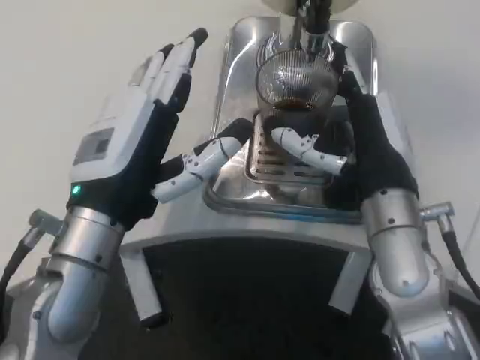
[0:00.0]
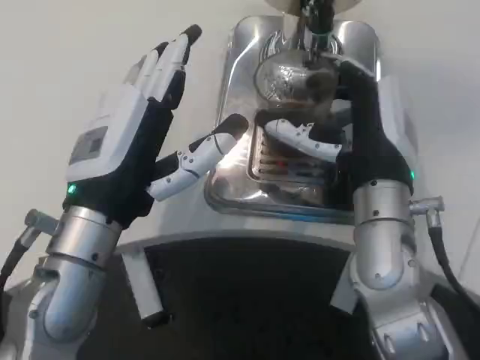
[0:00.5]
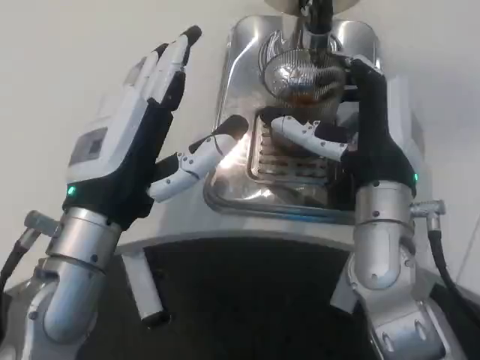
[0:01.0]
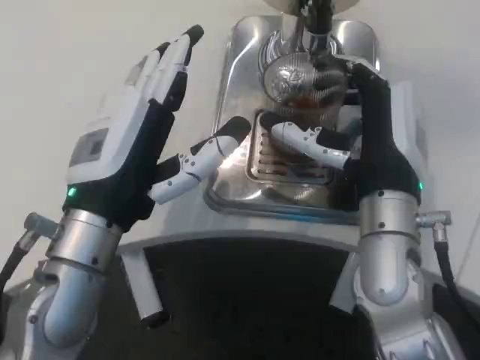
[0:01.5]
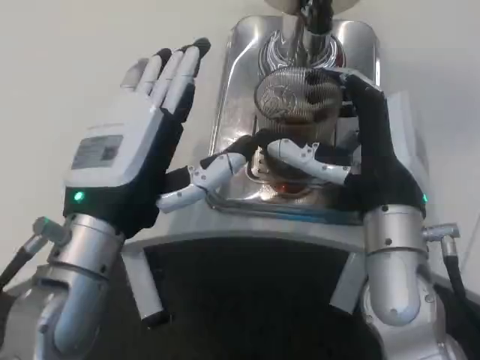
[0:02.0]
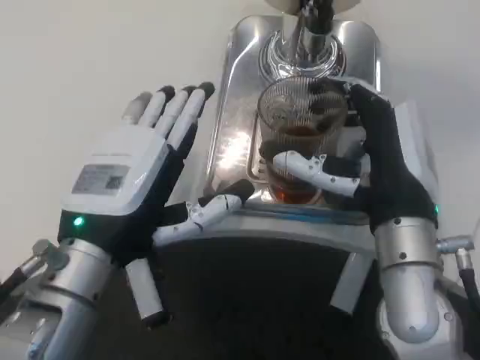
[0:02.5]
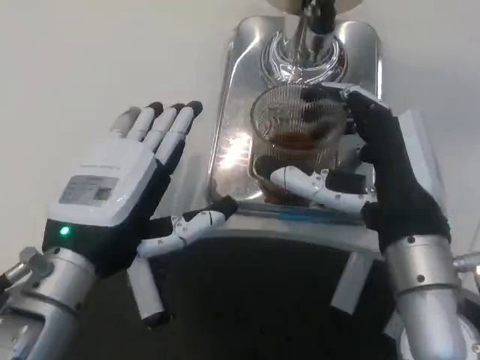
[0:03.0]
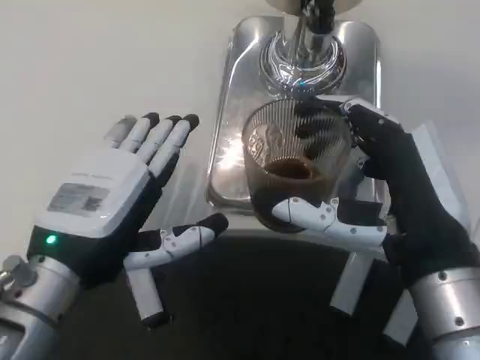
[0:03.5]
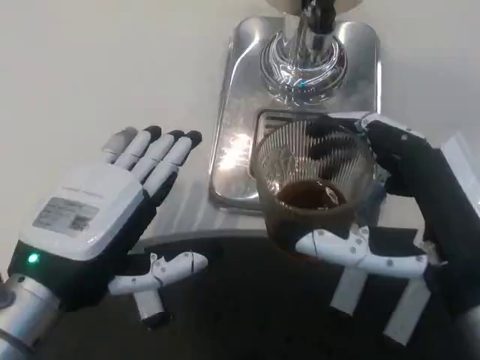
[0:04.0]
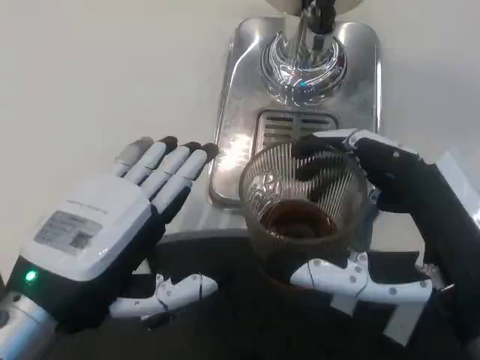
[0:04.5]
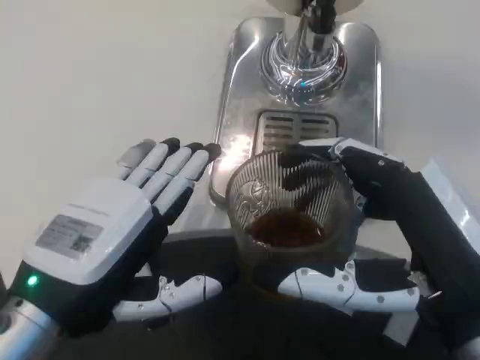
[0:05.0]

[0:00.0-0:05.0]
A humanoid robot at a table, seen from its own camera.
Task of the whole recording: Grasp the cup under the faucet to collect the drink, then remove the cup.
0:02.5 to 0:05.0: The right hand travels backward by about 10 cm, while the left hand is displaced backward by some 5 cm.

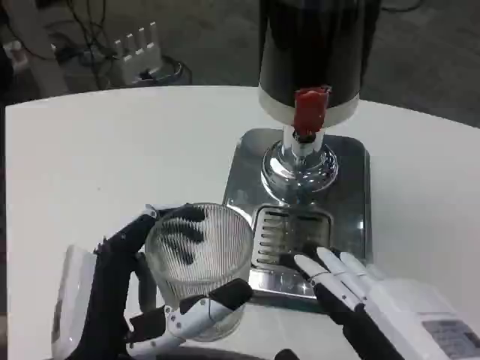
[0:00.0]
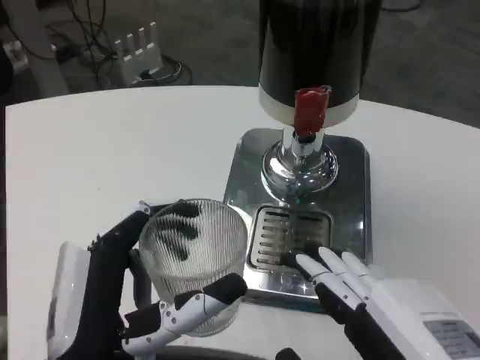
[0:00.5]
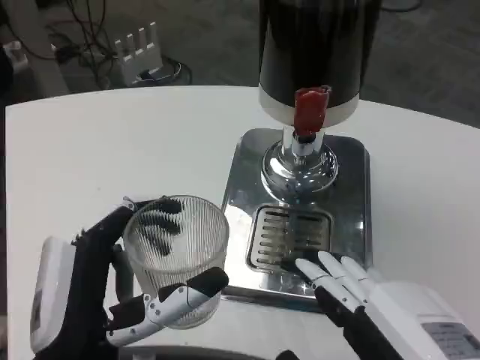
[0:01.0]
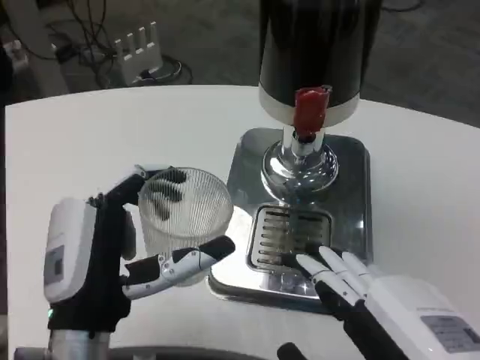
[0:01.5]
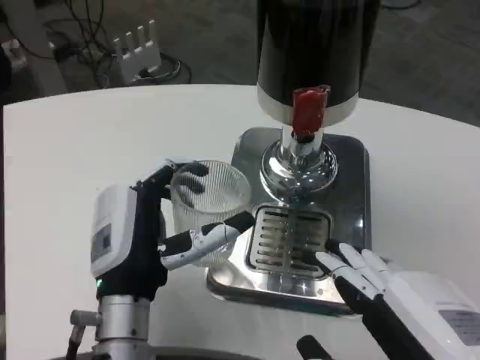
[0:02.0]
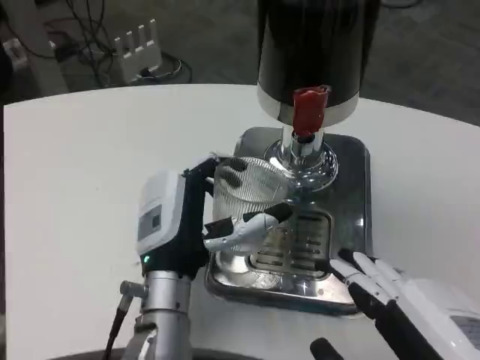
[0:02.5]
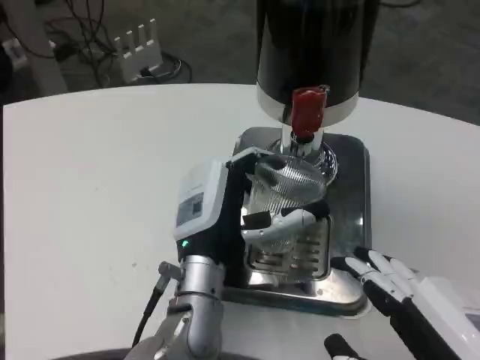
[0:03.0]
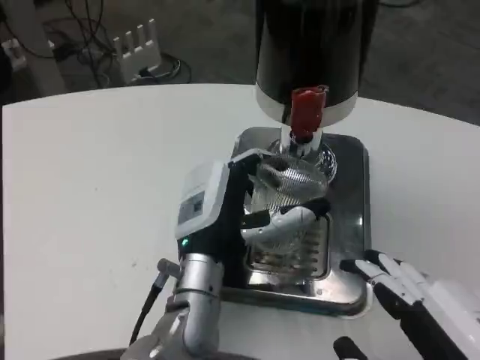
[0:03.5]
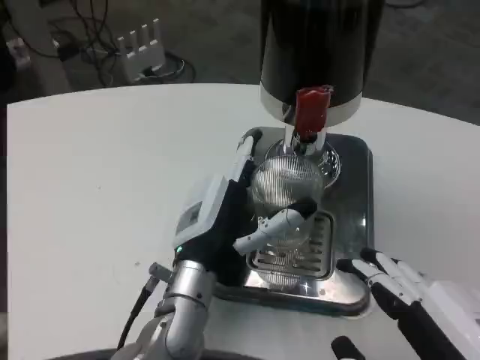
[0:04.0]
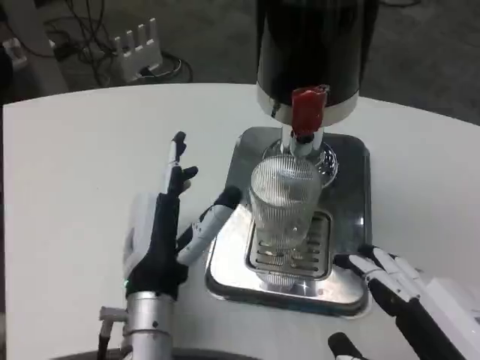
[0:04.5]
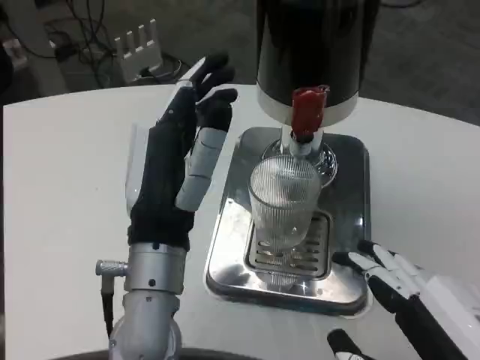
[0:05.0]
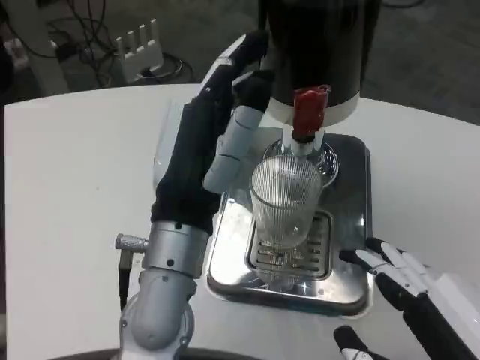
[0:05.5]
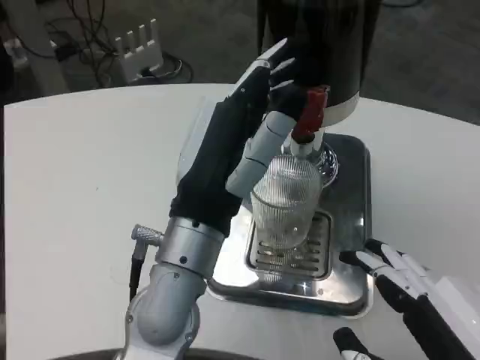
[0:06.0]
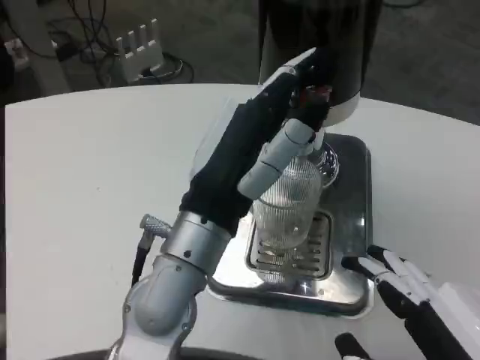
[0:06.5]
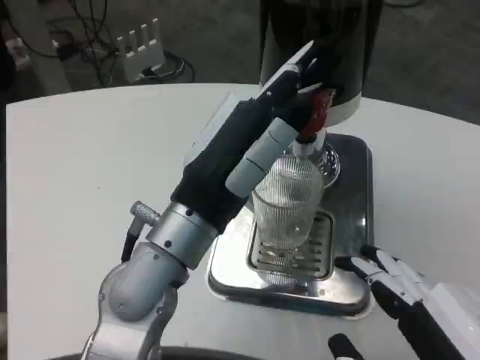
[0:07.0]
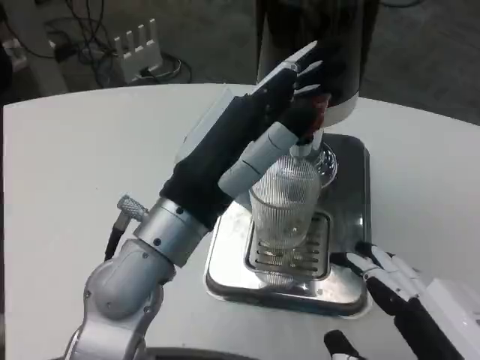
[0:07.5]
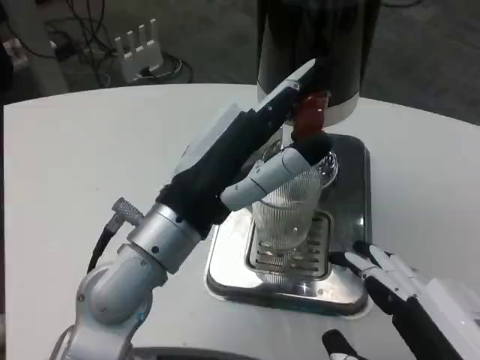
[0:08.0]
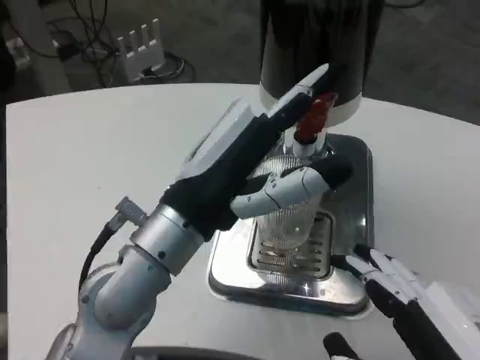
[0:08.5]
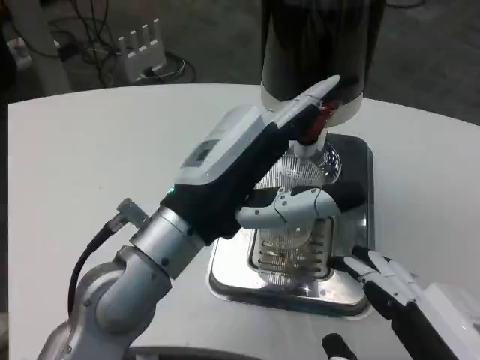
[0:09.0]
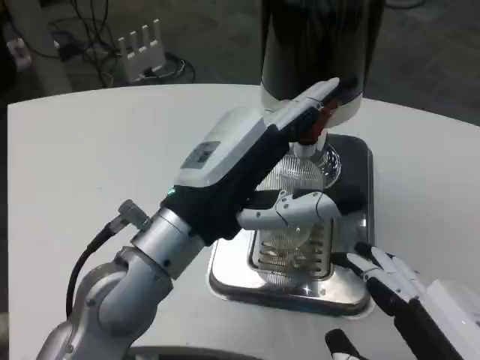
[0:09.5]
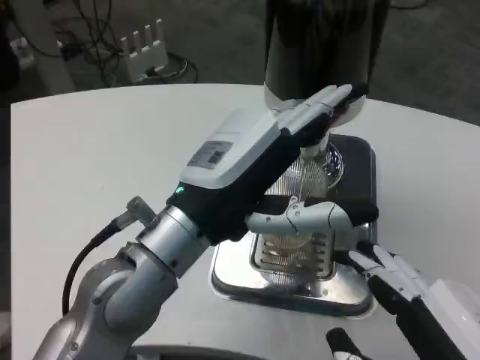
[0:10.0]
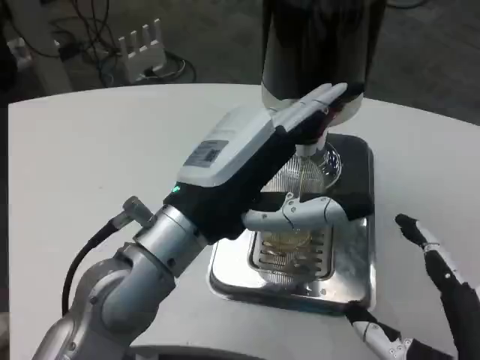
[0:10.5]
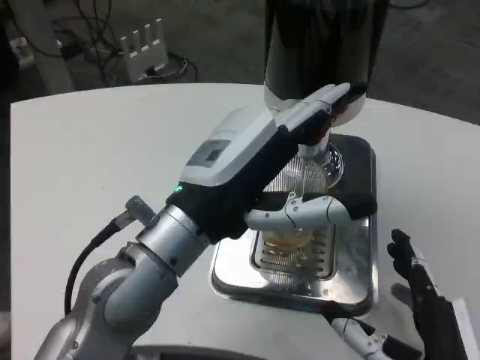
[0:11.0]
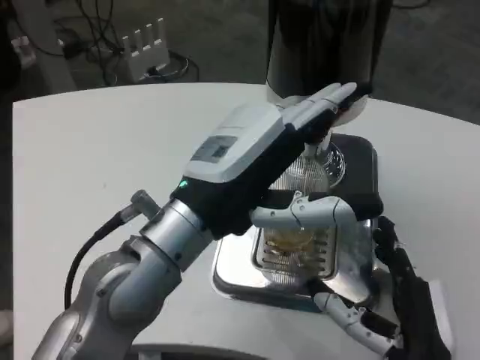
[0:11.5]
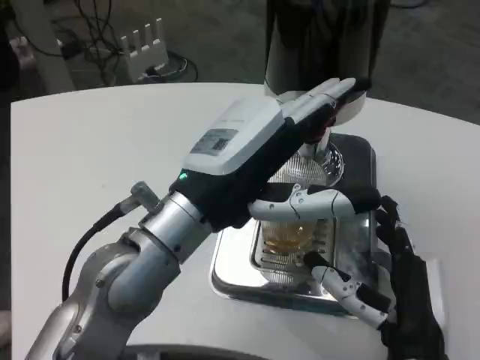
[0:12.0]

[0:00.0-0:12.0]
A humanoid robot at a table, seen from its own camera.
Task of the whole recording: Grasp the cup under the faucet to collect the drink, then remove the cup.
0:00.0 to 0:02.0: The left hand heads forward, covering some 10 cm.
0:02.0 to 0:04.0: The left hand ends up some 5 cm from where it was.
0:04.0 to 0:06.0: The left hand is displaced upward and backward by roughly 10 cm.
0:10.0 to 0:12.0: The right hand shifts approximately 15 cm forward, downward and to the left.

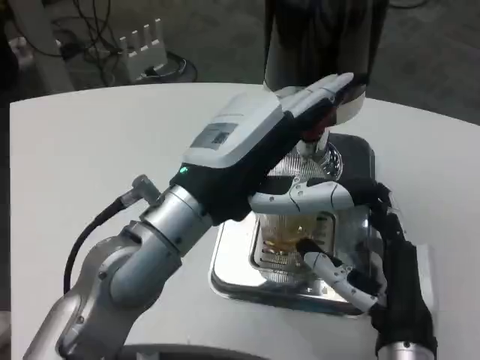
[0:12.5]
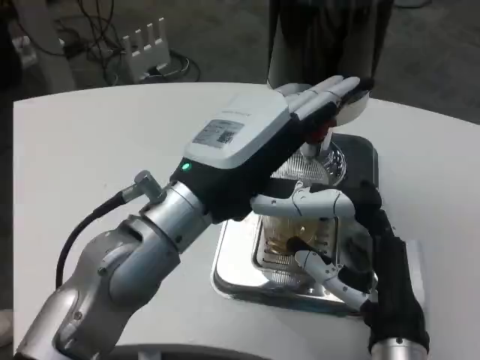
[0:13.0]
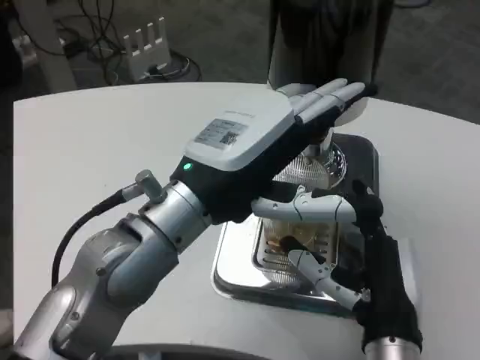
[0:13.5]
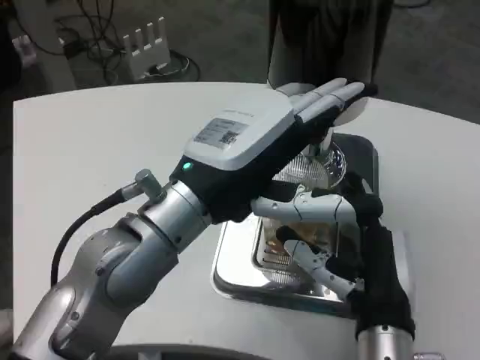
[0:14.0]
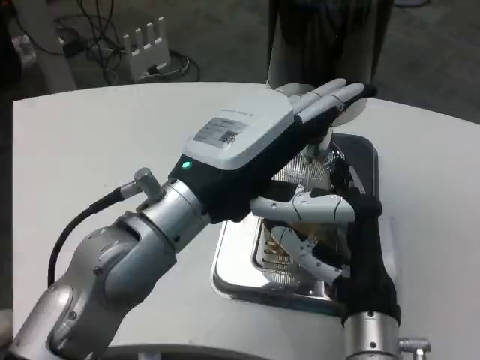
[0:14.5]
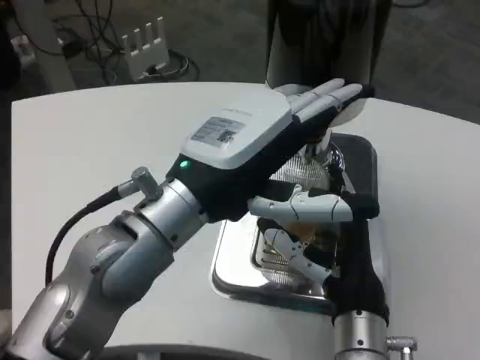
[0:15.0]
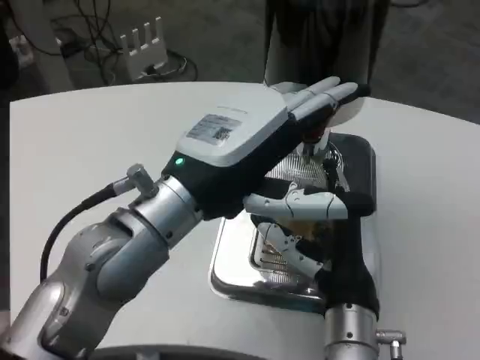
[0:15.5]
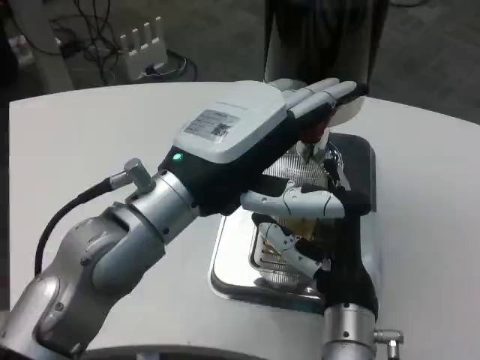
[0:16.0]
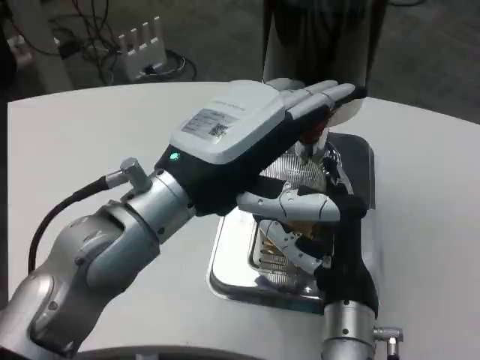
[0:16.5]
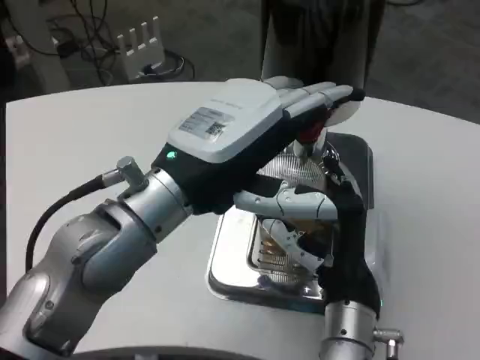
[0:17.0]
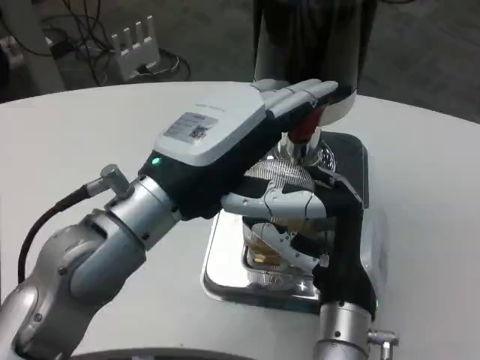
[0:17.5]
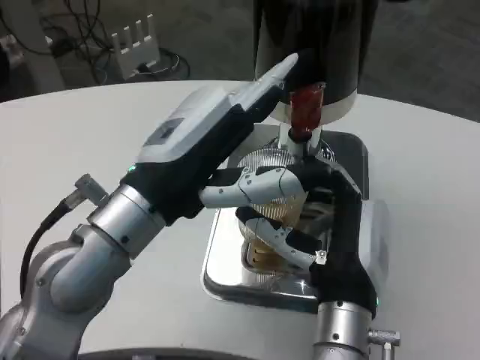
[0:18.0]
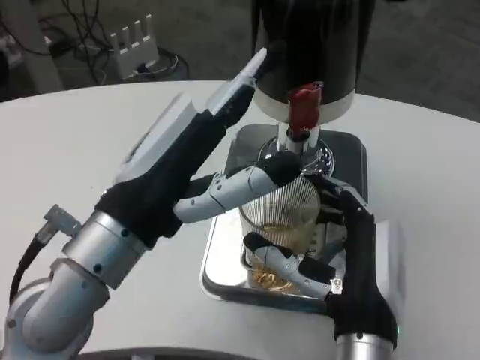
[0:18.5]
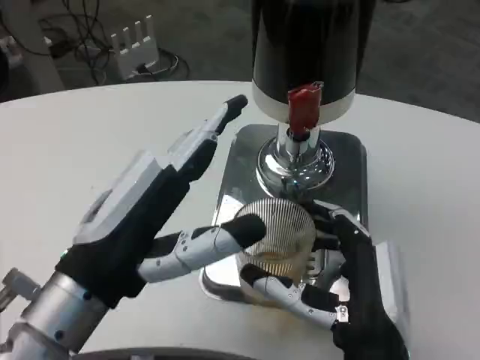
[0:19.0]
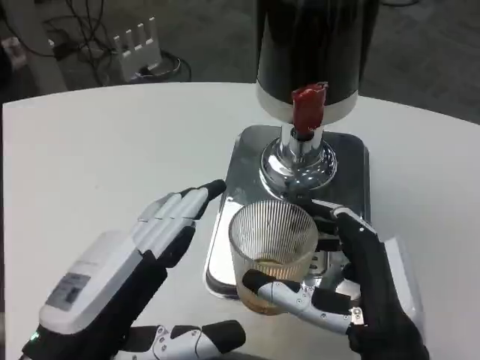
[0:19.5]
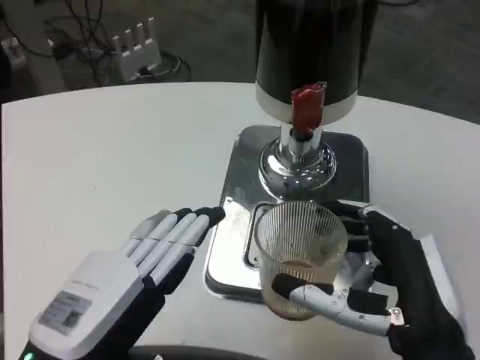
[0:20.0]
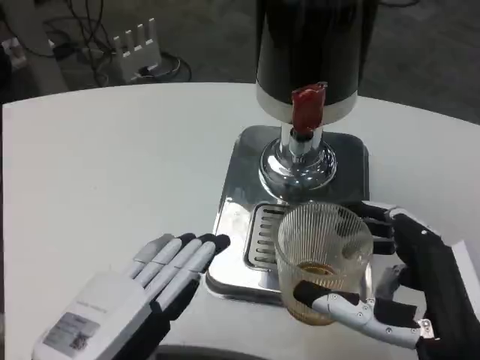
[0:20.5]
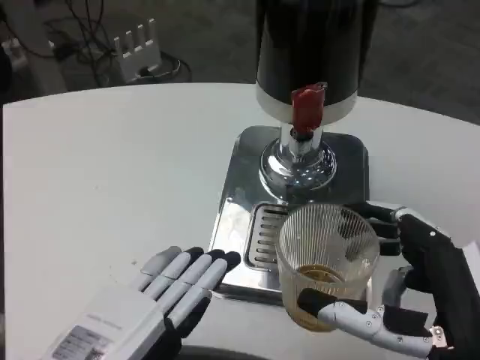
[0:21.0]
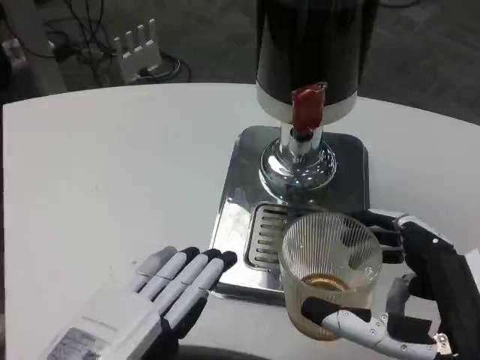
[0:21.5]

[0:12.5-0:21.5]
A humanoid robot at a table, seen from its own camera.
Task of the whole recording: Grasp the cup under the faucet to collect the drink, then remove the cup.
0:17.0 to 0:19.5: The left hand moves backward, downward and to the left, about 15 cm. Meanwhile the right hand shifts some 10 cm backward.
0:19.5 to 0:21.5: The right hand heads to the right, covering roughly 5 cm.
